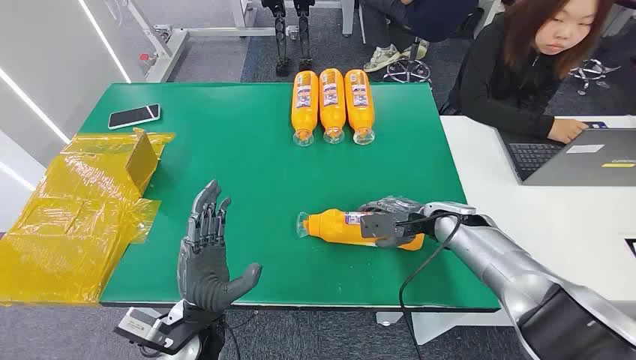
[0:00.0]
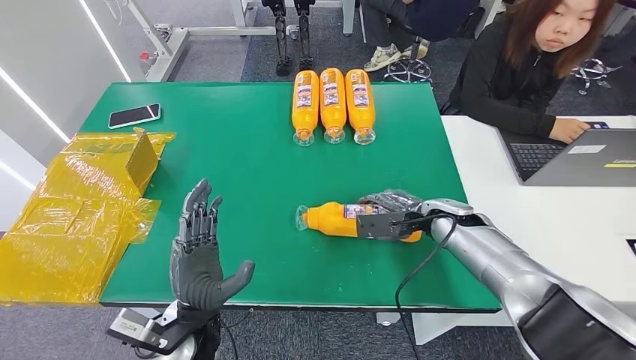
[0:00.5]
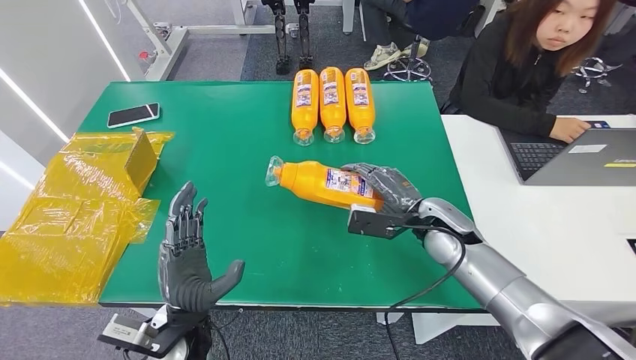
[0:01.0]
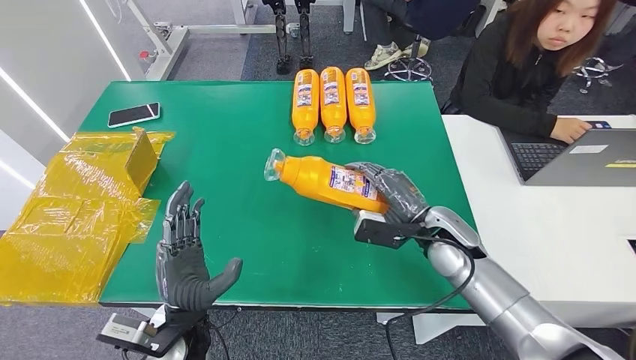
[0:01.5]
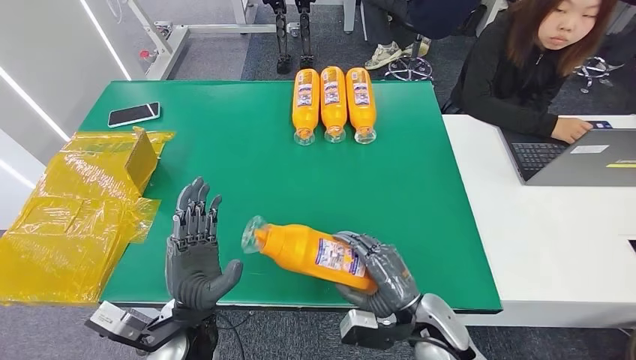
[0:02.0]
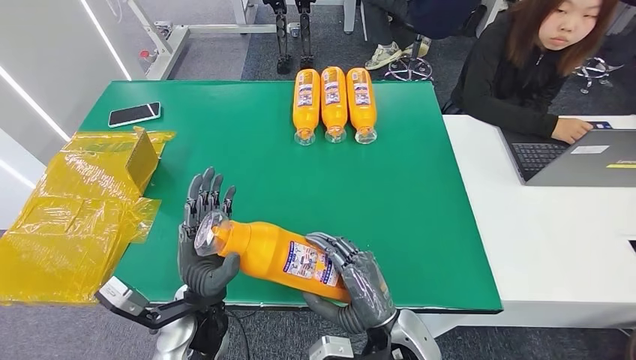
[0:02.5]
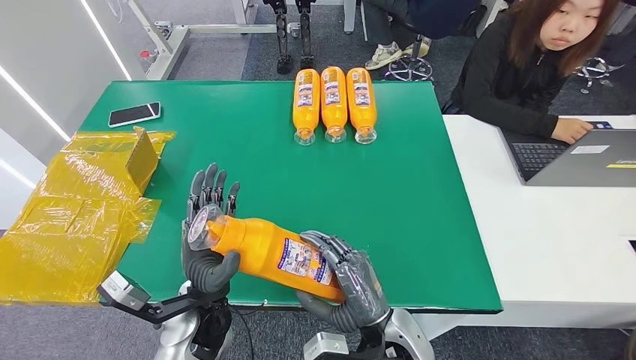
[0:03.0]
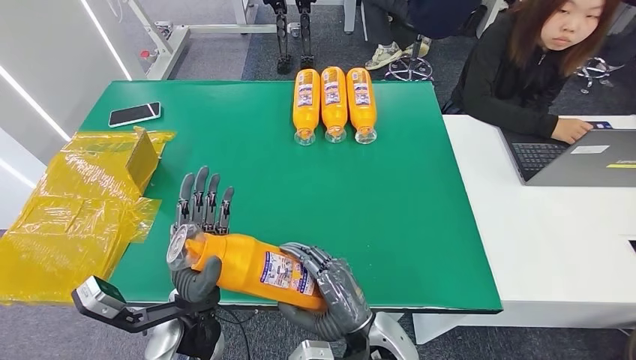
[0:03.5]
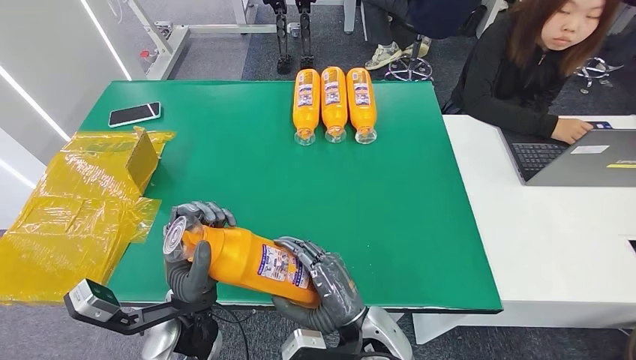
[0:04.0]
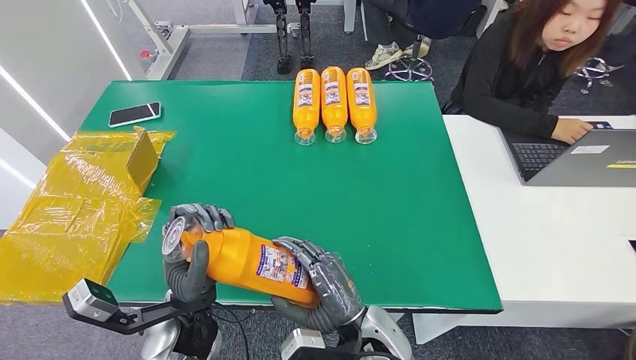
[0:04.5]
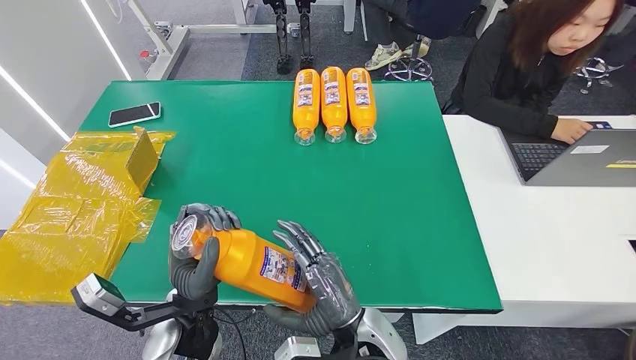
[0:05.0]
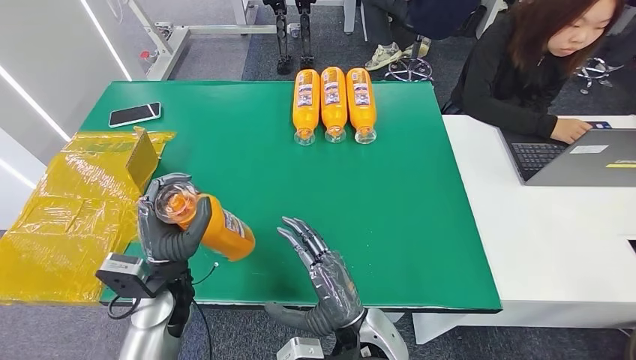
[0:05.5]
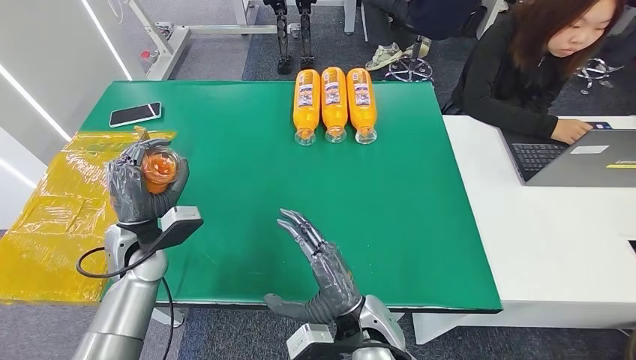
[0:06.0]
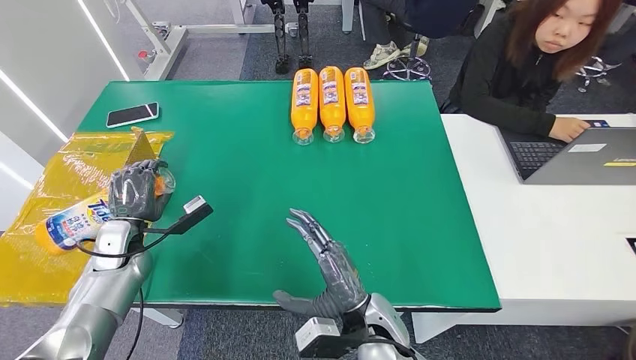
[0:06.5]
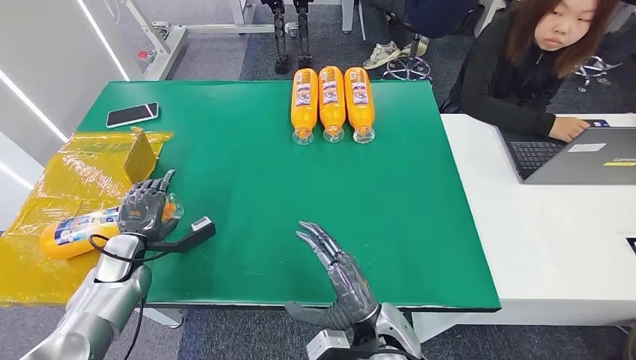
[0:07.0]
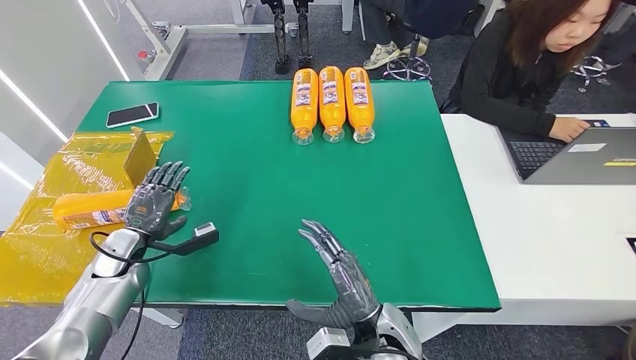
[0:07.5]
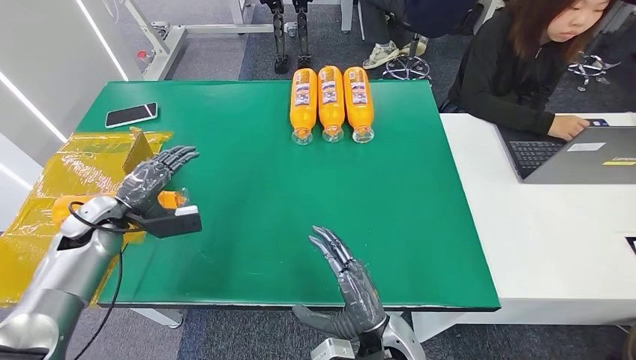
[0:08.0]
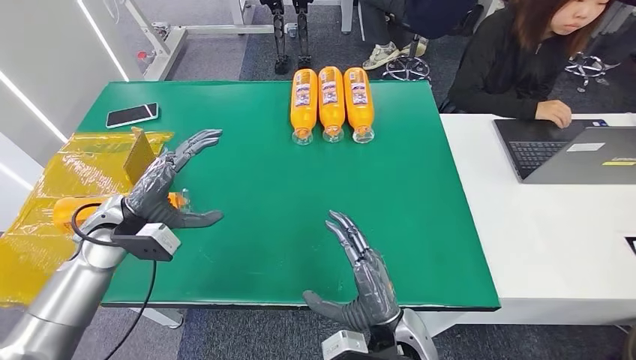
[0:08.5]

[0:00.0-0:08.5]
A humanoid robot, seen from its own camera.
Step, 0:00.0 to 0:02.5: Pick up the bottle from the table.
Step, 0:03.0 to 0:08.5: Turn the bottle to the front side.
0:02.0 to 0:04.0: The right hand travels to the left by approximately 10 cm.
0:06.5 to 0:08.5: The left hand is displaced upward by roughly 10 cm.

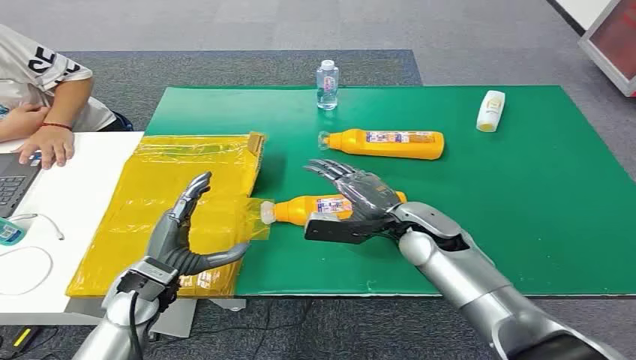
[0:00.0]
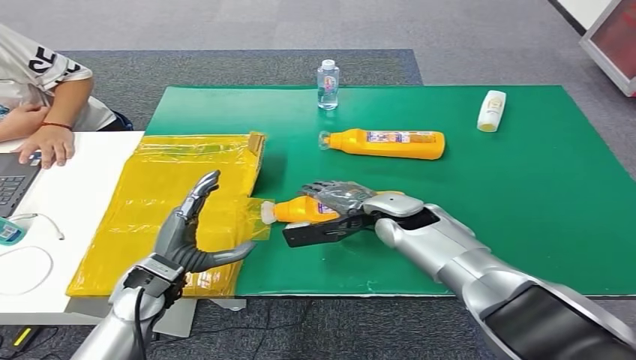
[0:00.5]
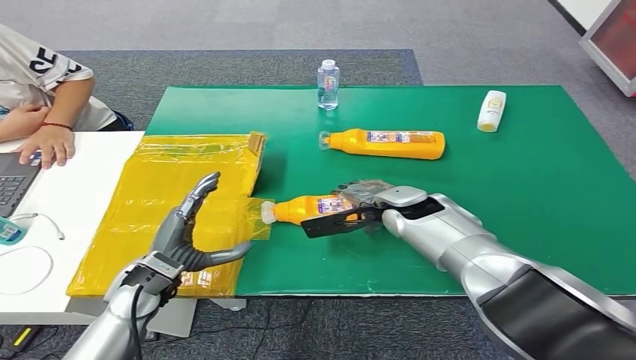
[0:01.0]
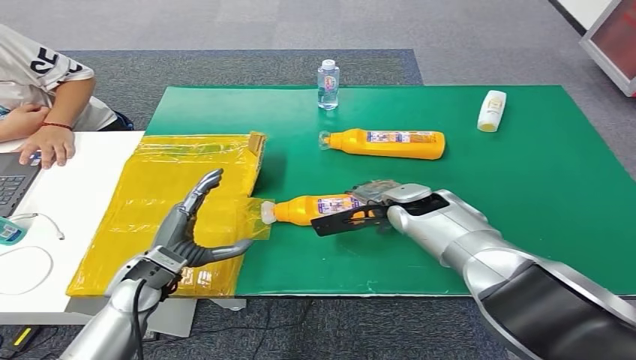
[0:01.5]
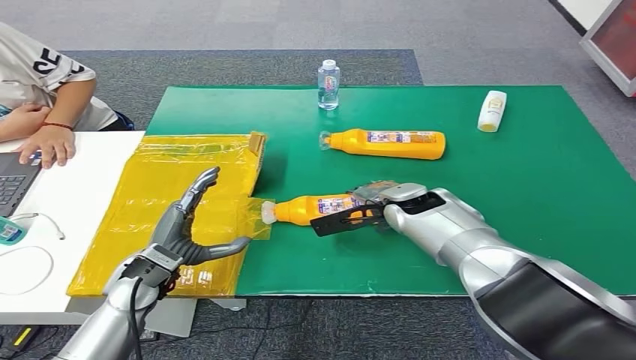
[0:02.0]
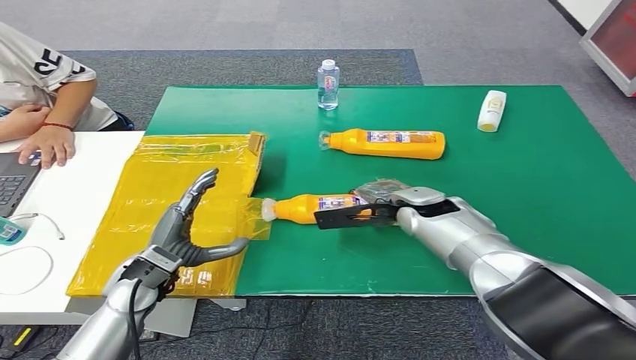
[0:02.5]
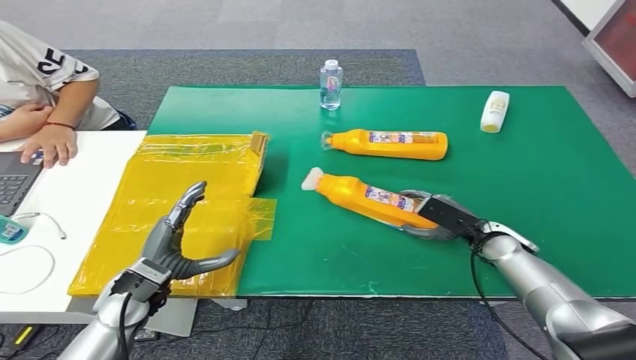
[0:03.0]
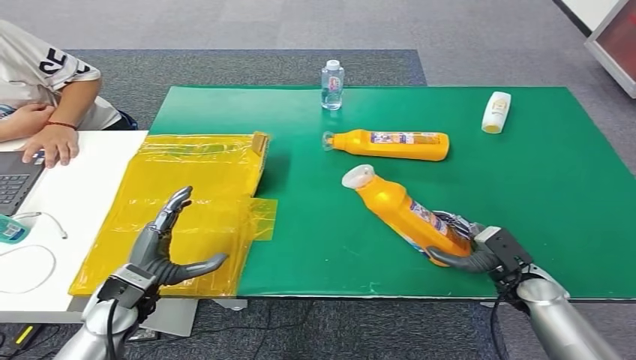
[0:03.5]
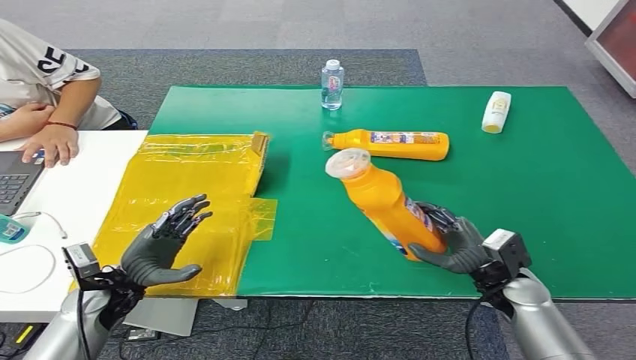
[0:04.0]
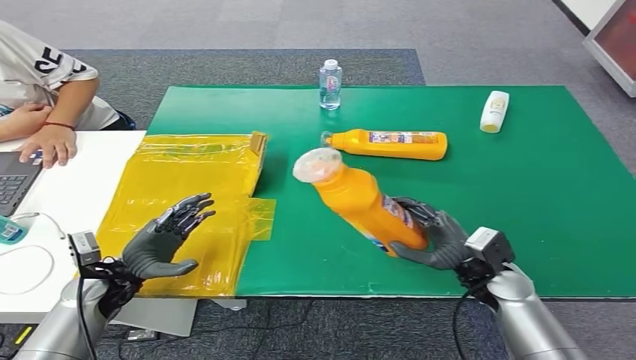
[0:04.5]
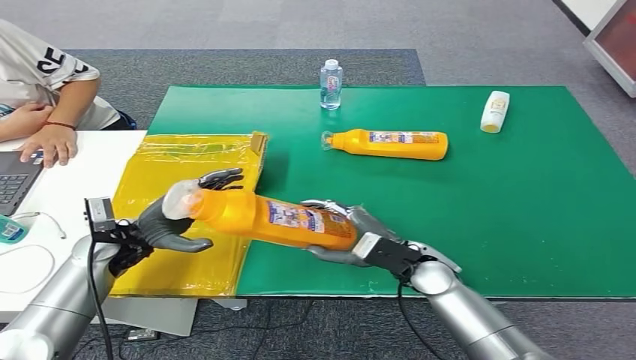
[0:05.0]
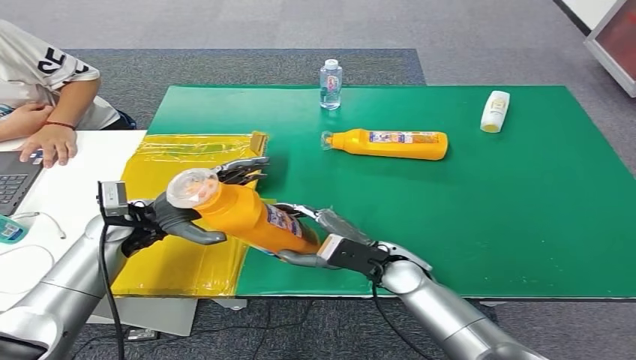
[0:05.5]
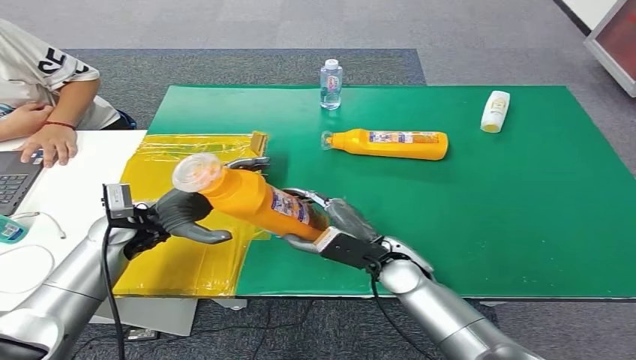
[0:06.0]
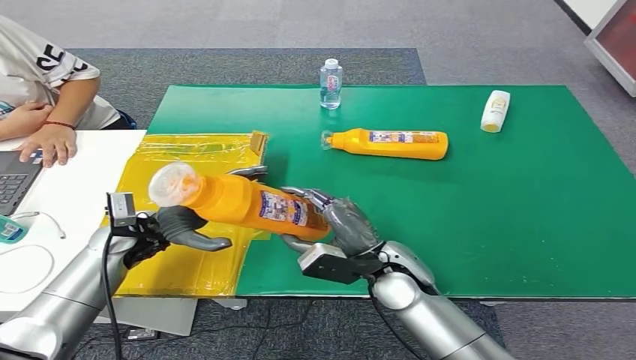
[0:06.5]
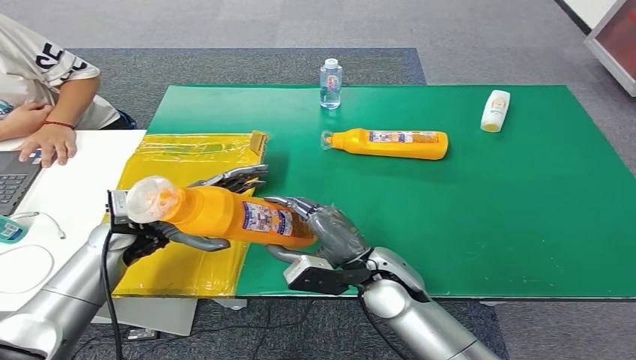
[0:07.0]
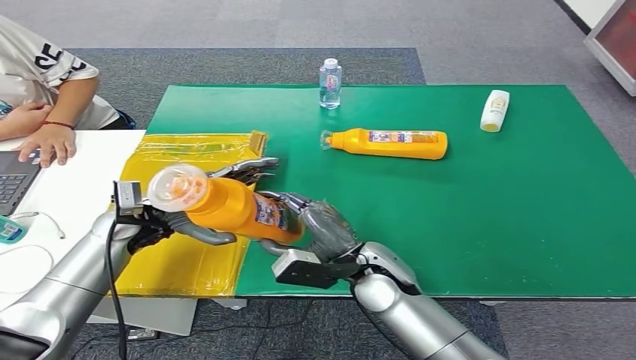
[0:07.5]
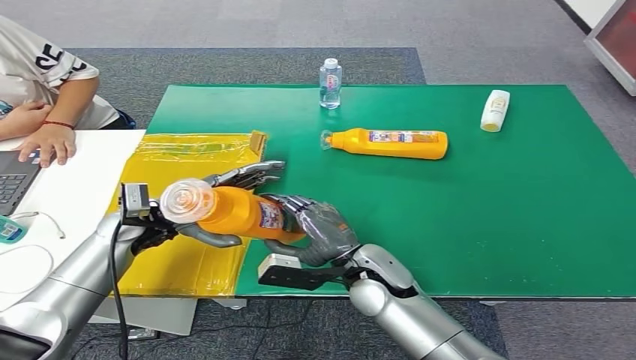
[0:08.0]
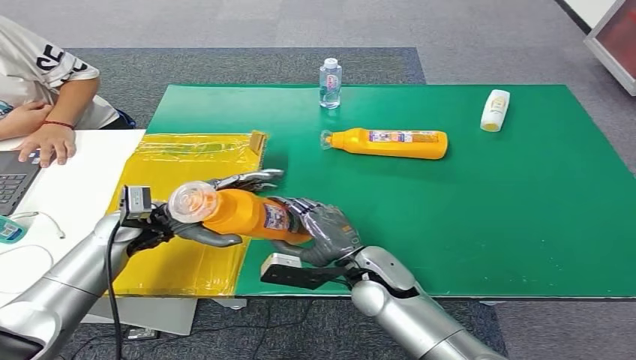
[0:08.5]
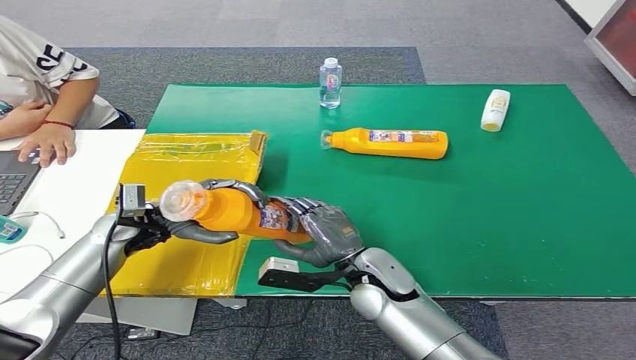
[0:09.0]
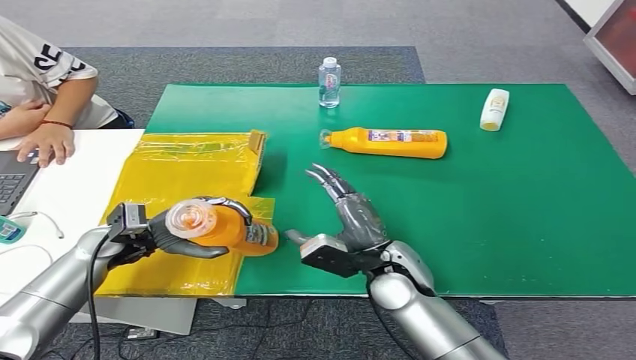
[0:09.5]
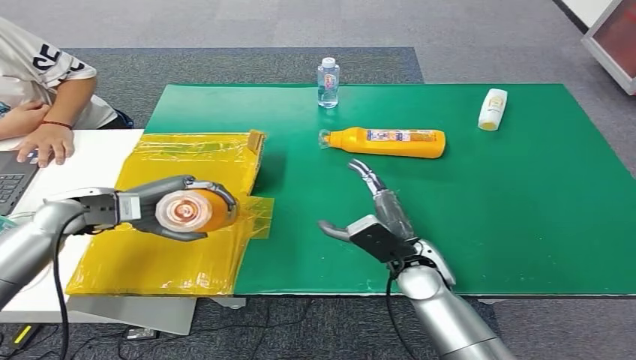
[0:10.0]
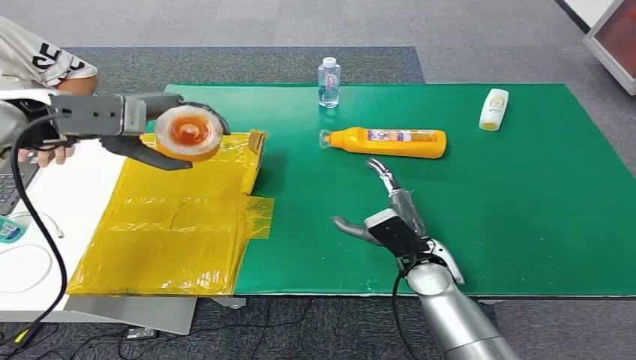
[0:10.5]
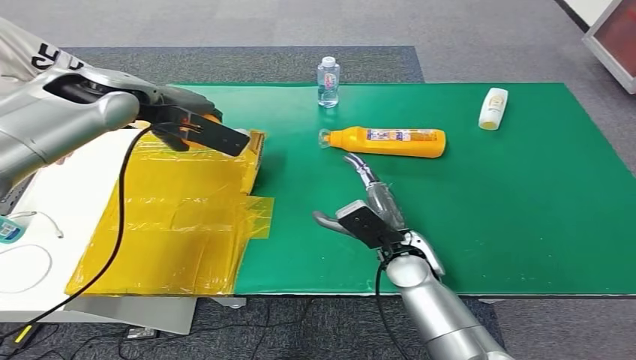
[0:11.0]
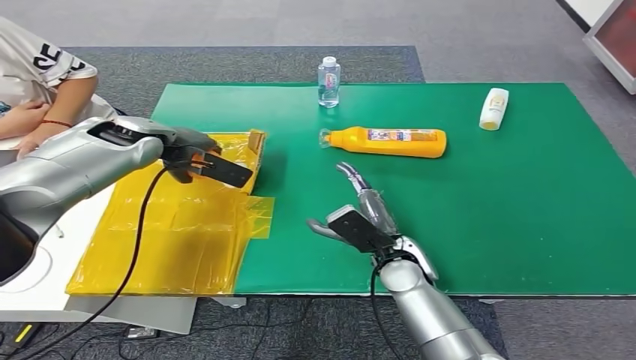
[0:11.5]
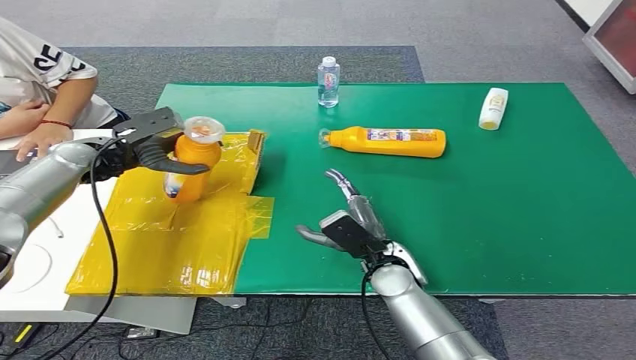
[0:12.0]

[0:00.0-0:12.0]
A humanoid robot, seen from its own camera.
Step, 0:00.0 to 0:03.5: Pick up the bottle from the table.
0:10.0 to 0:12.0: The left hand is displaced forward by approximately 10 cm, and moves roughly 20 cm upward and comes back.
